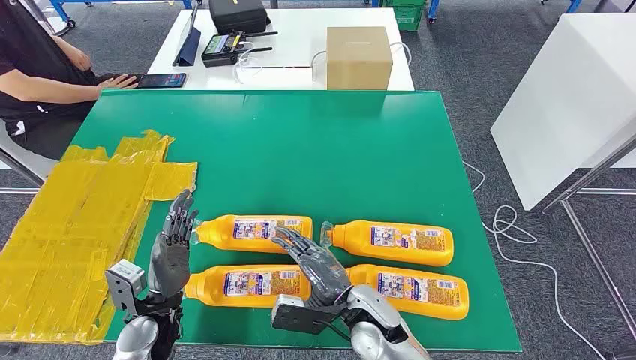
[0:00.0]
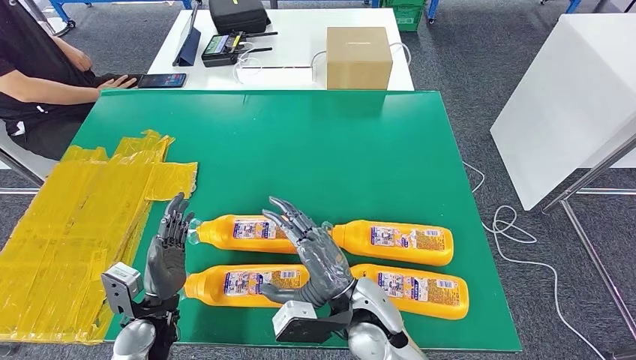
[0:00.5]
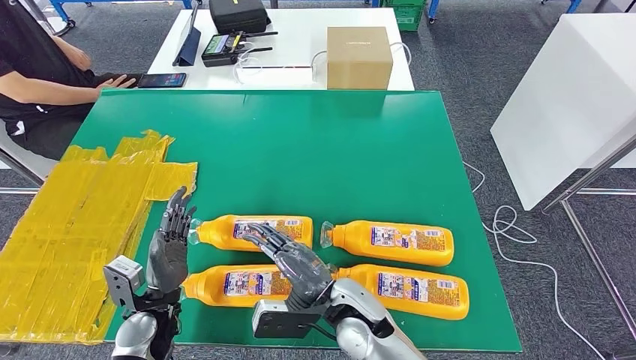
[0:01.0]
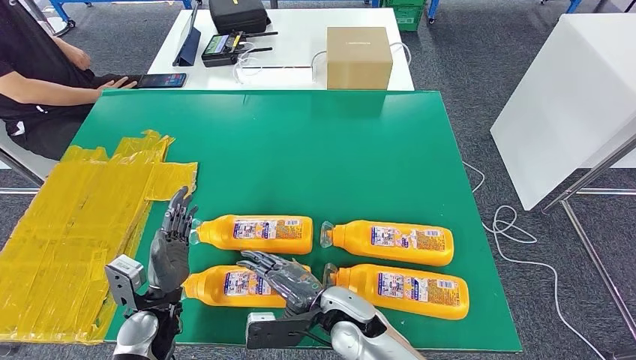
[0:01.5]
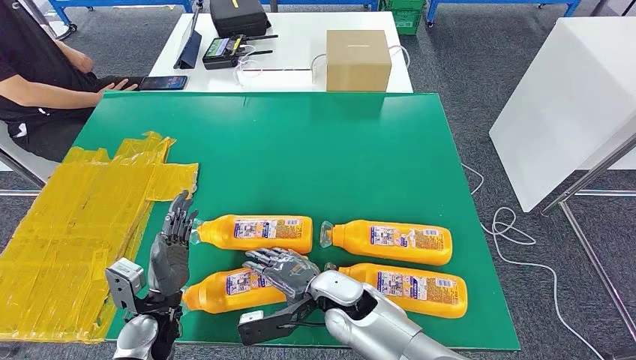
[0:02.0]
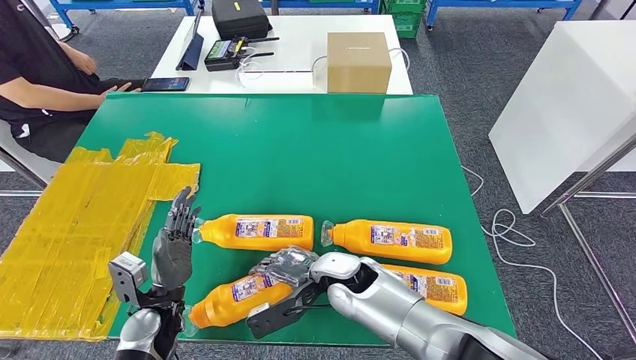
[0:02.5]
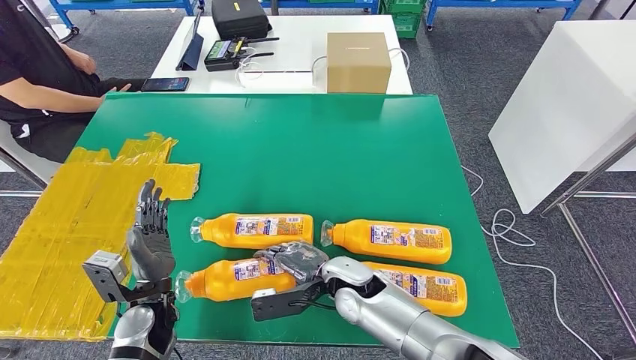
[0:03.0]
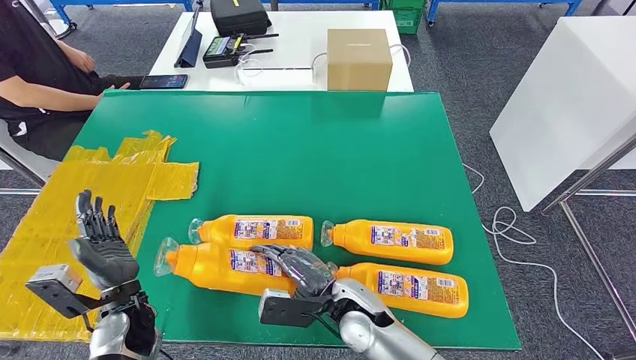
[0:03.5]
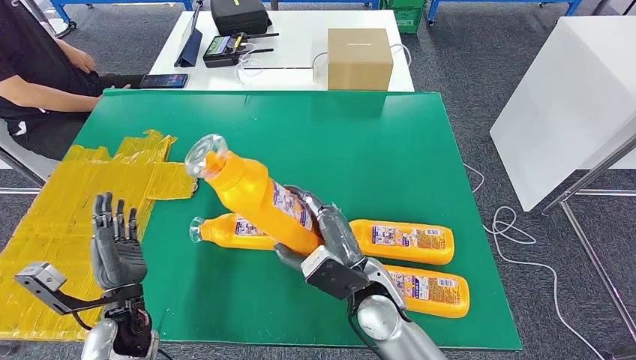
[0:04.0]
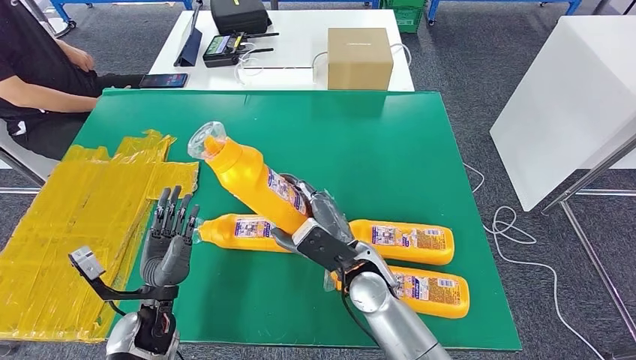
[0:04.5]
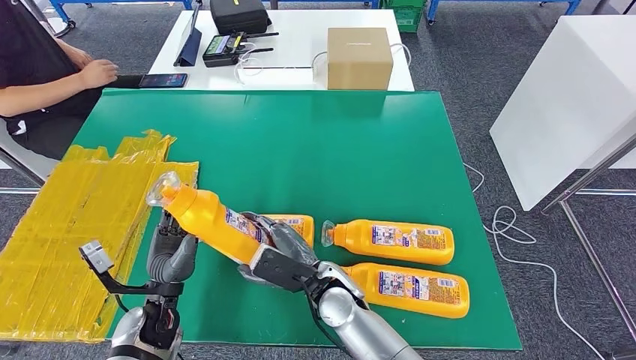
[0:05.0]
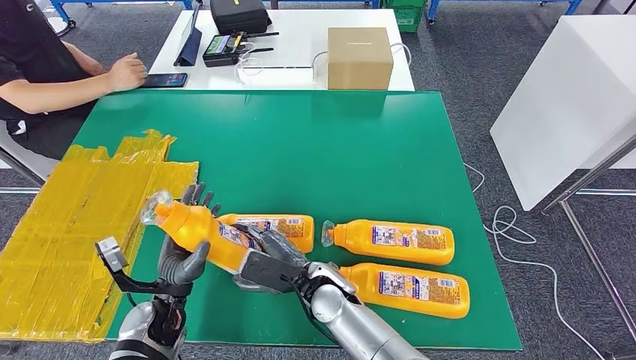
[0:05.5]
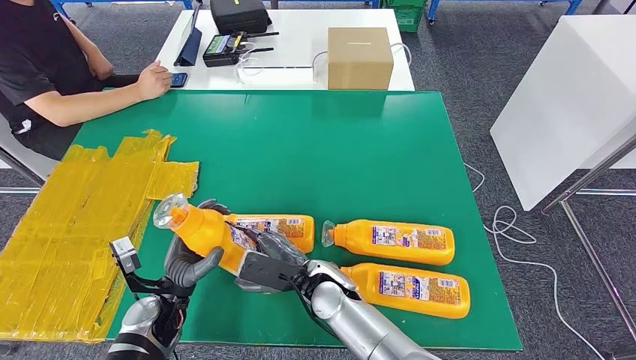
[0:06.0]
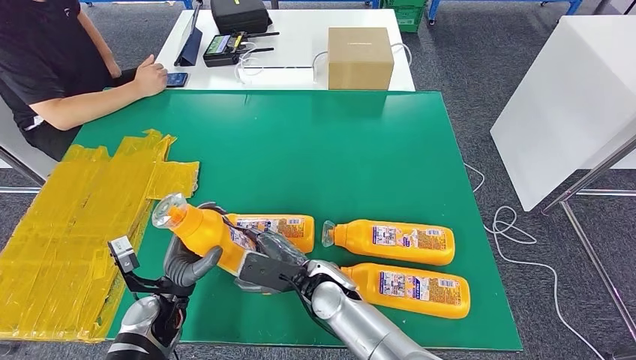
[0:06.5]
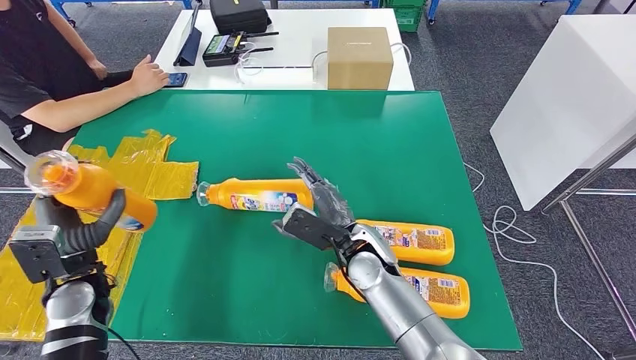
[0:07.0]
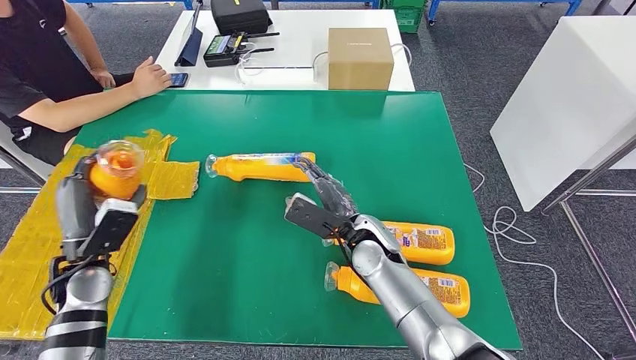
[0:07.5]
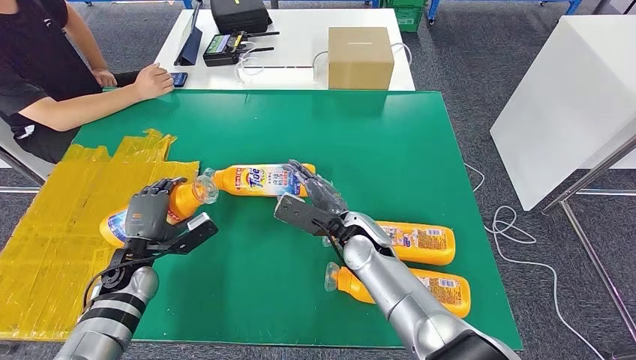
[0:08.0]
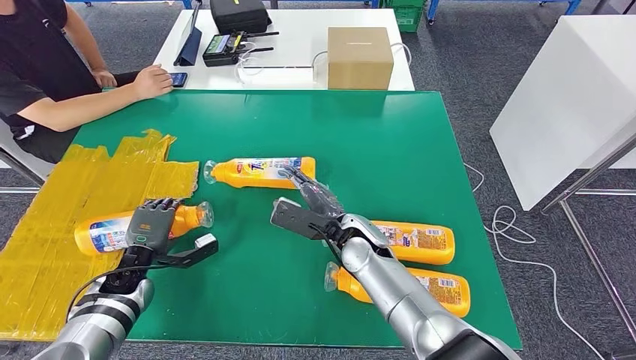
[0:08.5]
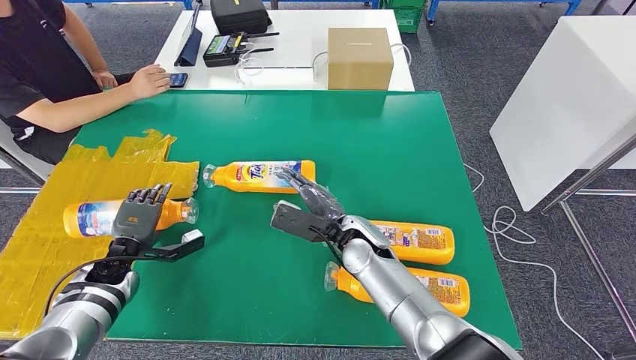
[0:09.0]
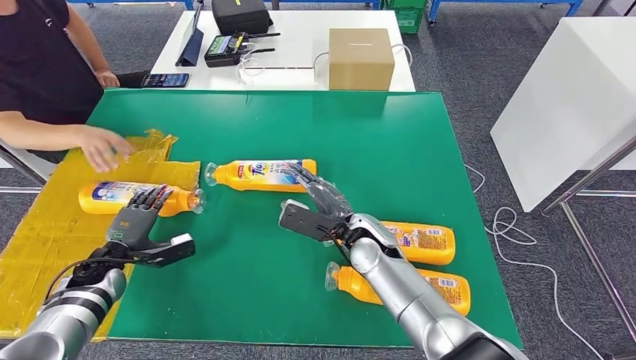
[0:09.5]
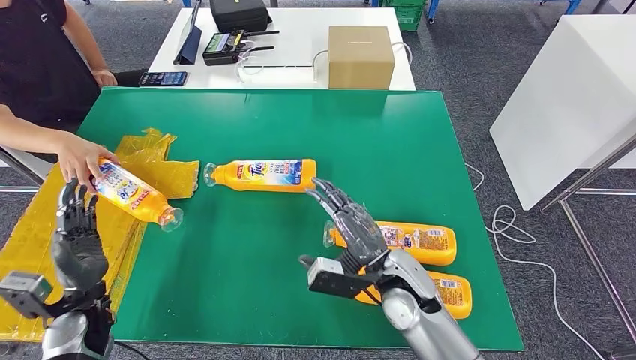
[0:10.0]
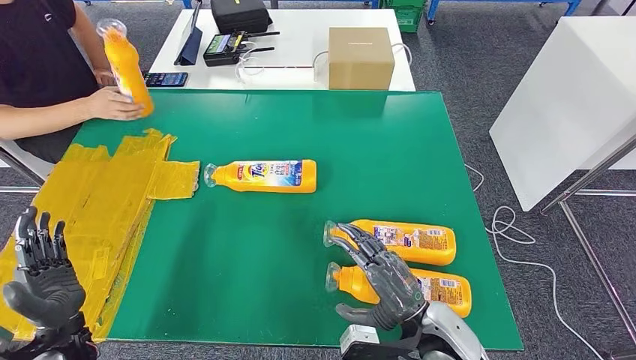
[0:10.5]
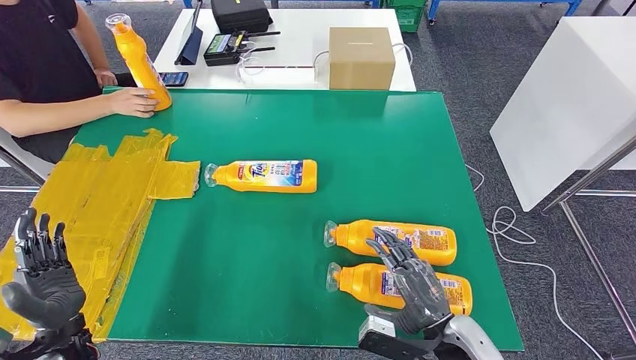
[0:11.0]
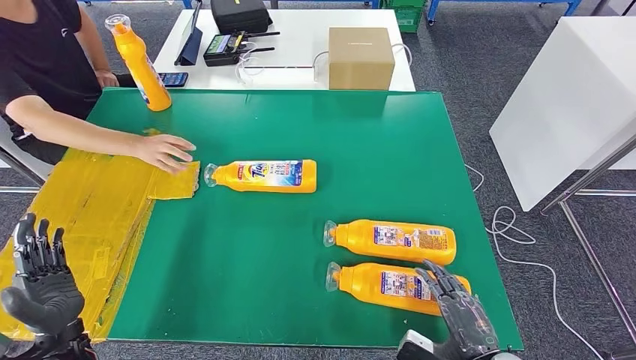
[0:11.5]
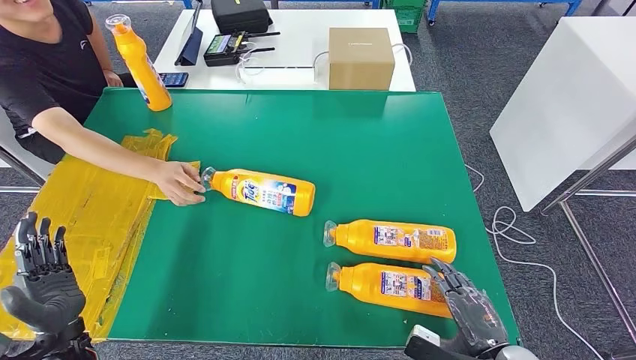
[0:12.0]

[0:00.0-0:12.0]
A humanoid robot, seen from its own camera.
Step, 0:00.0 to 0:04.0: Take the fast-moving consumer goods bottle from the table.
Step, 0:04.5 to 0:09.0: Flip the fast-moving consumer goods bottle to the front side.
0:04.0 to 0:06.0: The left hand ends up about 5 cm from where it was. The right hand is displaced to the left by approximately 5 cm.
0:06.0 to 0:08.0: The right hand goes about 10 cm forward and to the right, while the left hand heads to the left and forward, covering some 10 cm.

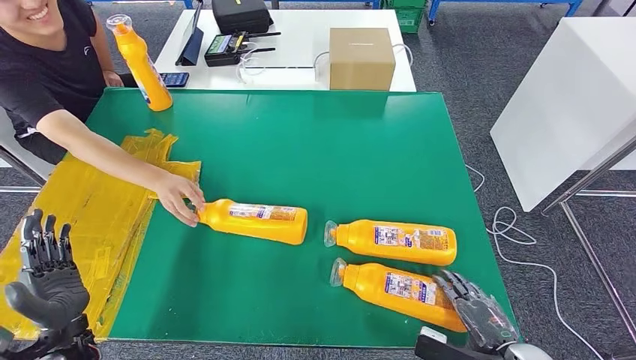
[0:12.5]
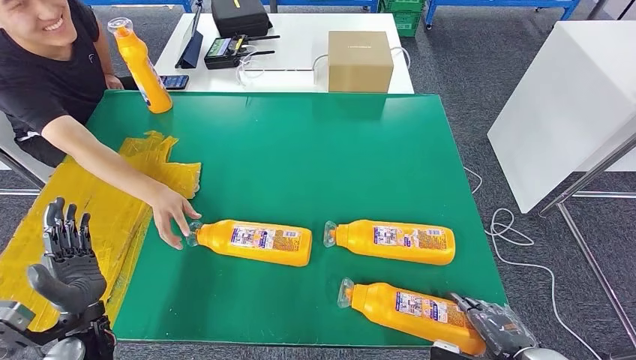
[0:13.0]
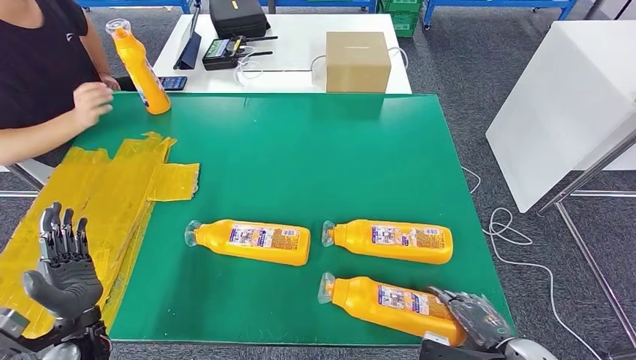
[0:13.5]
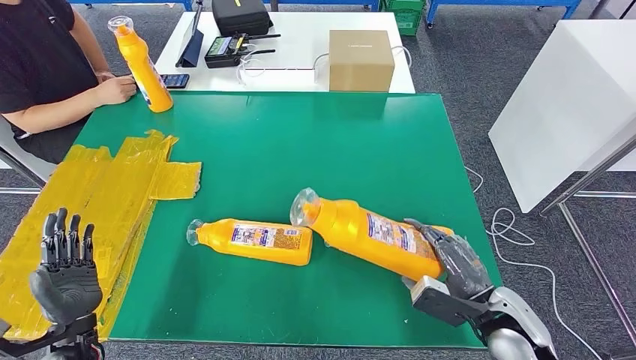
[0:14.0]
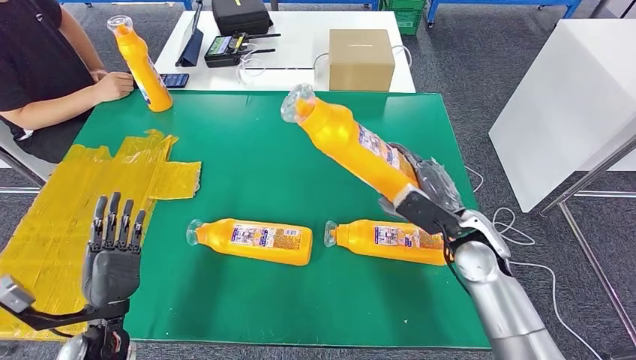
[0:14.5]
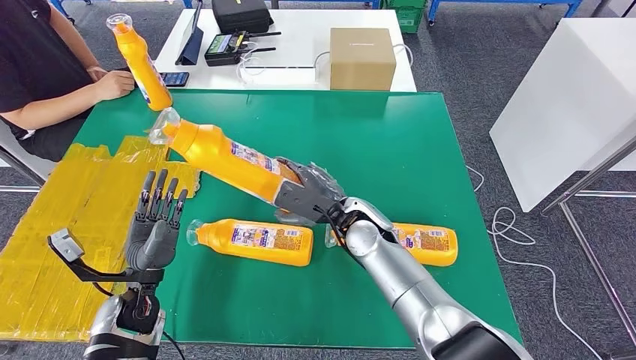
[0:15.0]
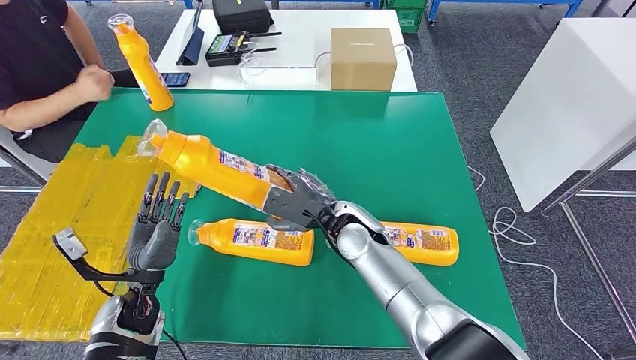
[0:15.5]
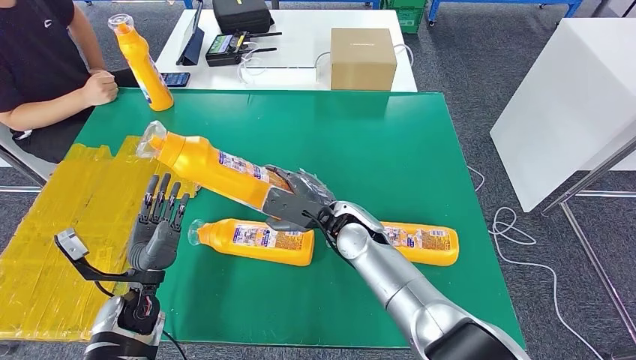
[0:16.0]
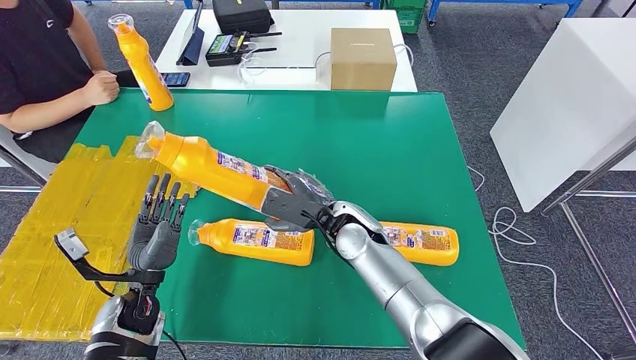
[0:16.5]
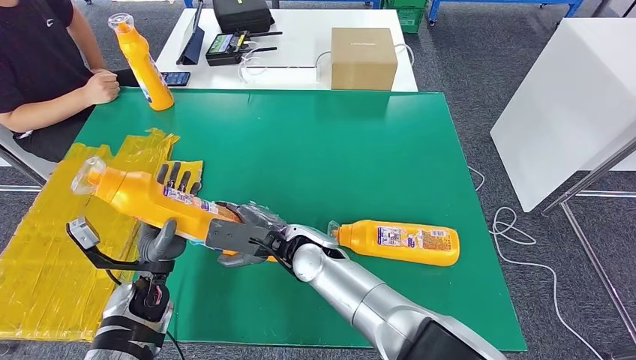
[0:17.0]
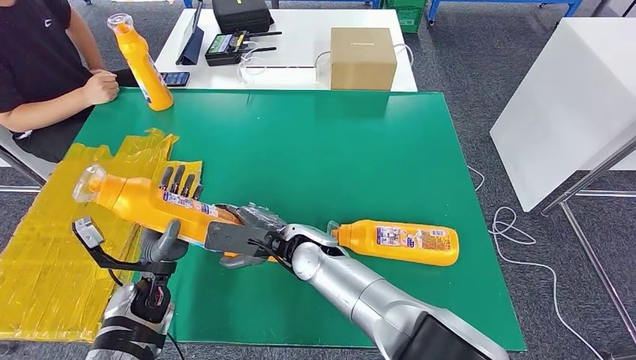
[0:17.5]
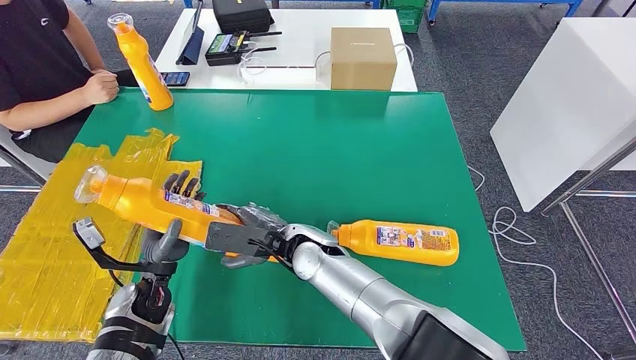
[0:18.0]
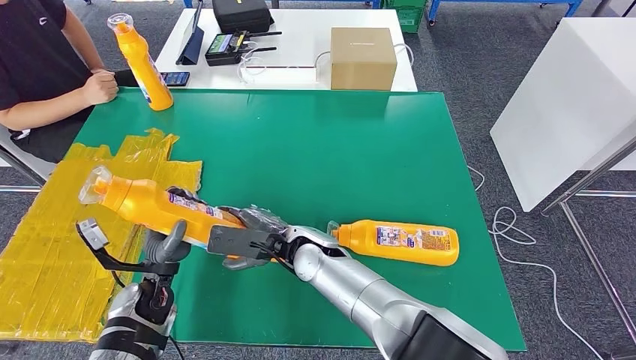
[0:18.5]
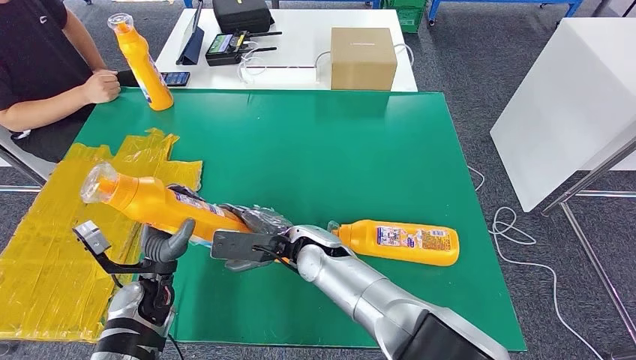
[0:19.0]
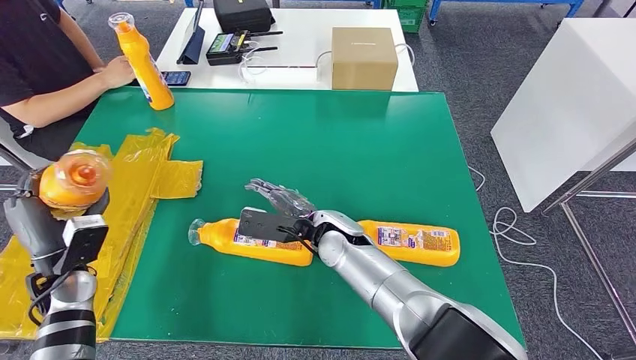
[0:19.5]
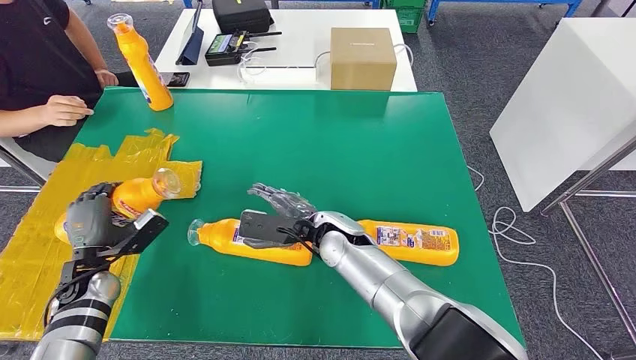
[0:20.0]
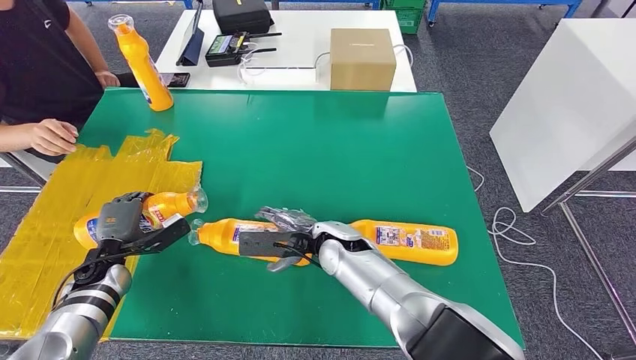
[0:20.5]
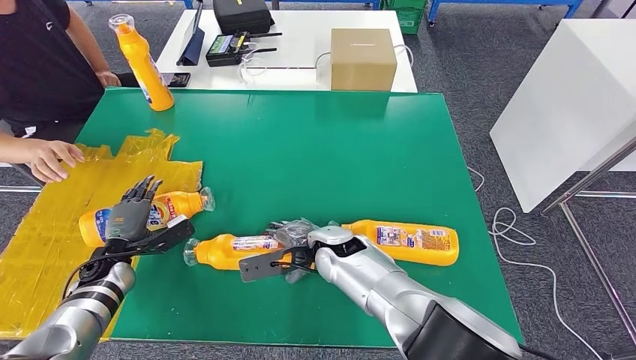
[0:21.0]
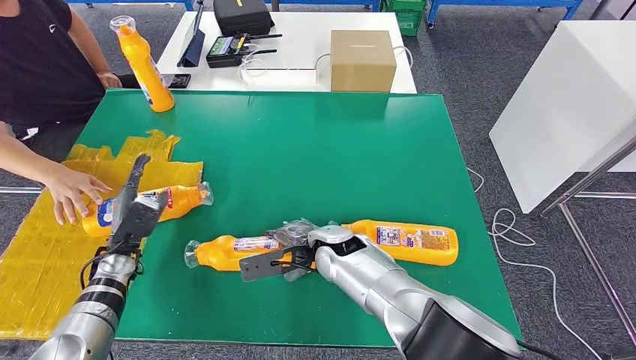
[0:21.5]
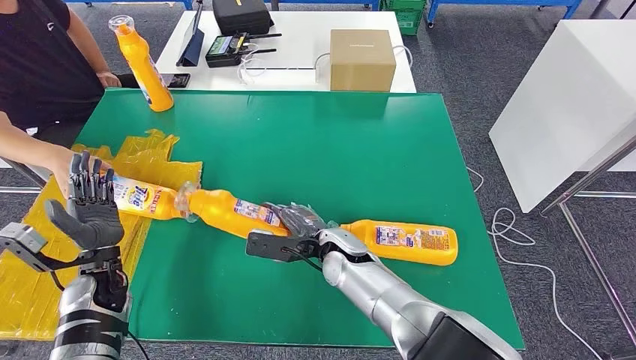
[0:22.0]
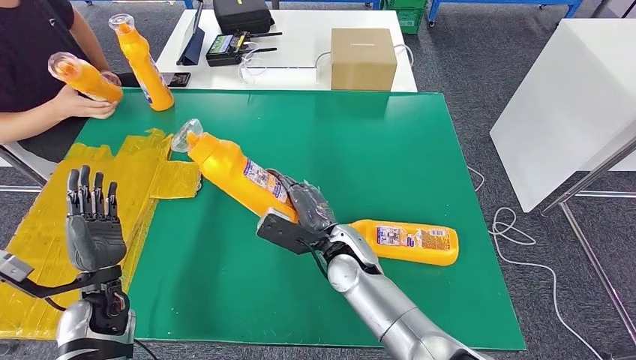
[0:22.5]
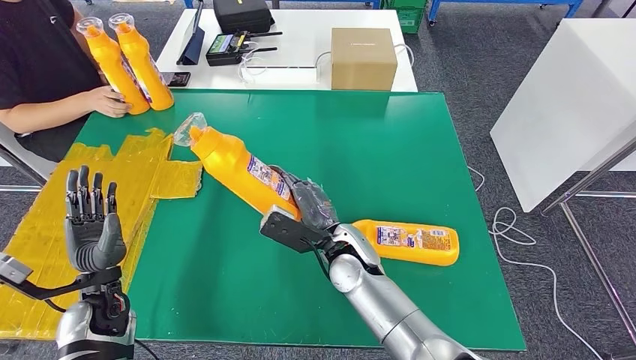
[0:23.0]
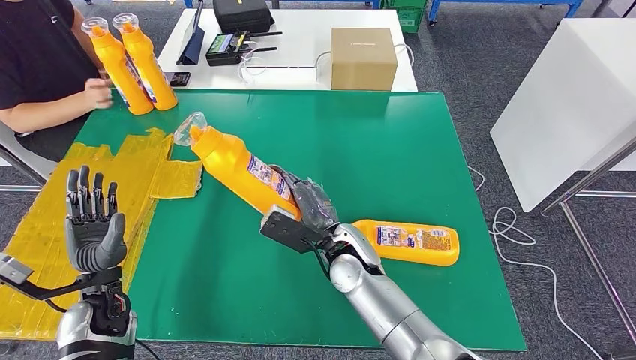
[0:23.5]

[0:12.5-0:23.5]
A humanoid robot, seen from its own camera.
Step, 0:12.5 to 0:14.5: Pick up the fast-moving consumer goods bottle from the table.
Step, 0:15.0 to 0:21.0: Flip the fast-moving consumer goods bottle to the front side.
0:16.0 to 0:18.0: The right hand travels to the left by about 10 cm.
0:18.0 to 0:20.0: The right hand moves to the right, about 5 cm. Meanwhile the left hand is displaced to the left by about 15 cm.
